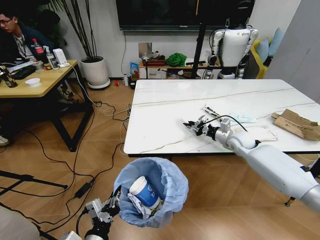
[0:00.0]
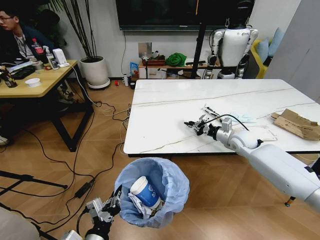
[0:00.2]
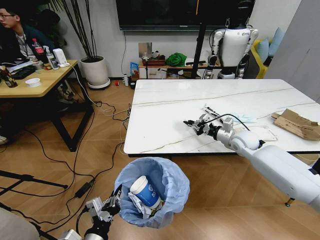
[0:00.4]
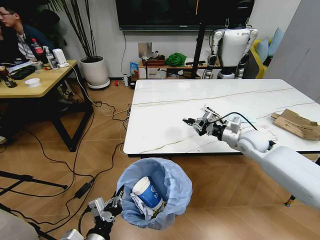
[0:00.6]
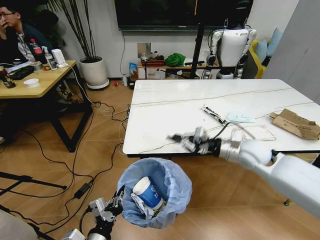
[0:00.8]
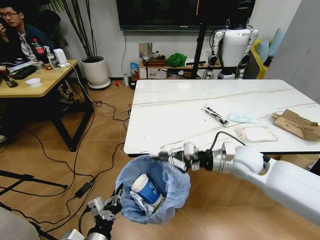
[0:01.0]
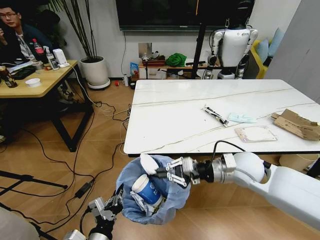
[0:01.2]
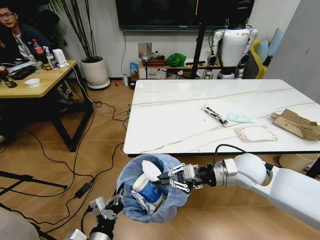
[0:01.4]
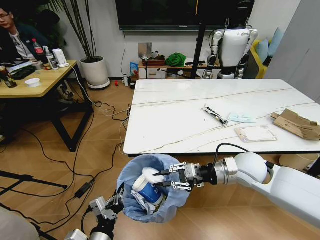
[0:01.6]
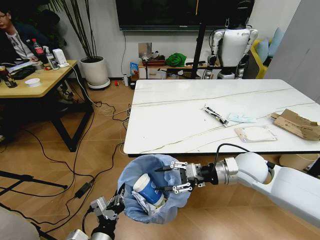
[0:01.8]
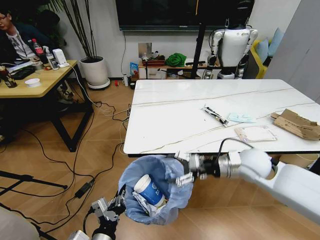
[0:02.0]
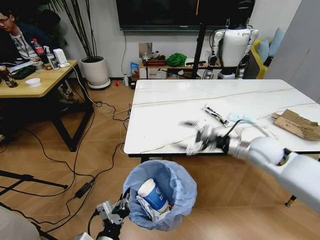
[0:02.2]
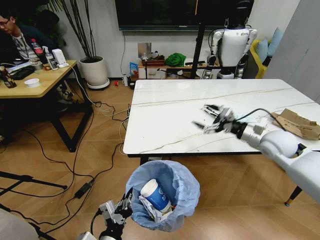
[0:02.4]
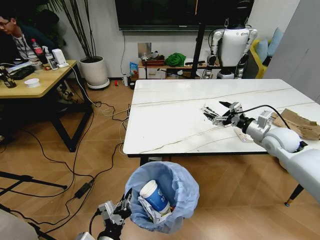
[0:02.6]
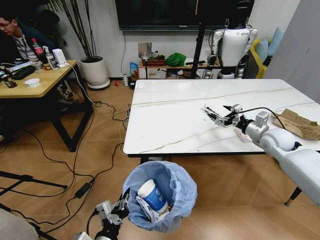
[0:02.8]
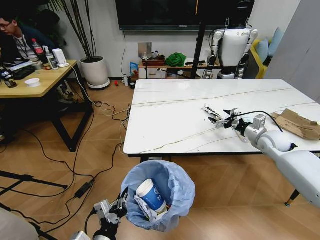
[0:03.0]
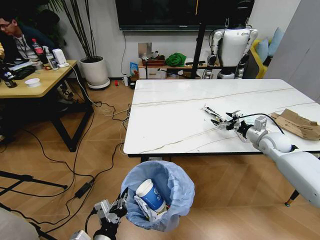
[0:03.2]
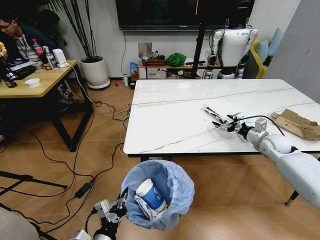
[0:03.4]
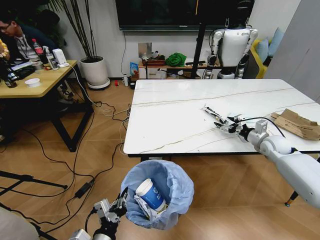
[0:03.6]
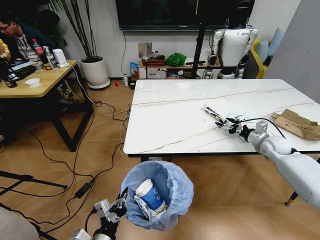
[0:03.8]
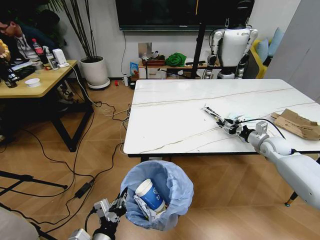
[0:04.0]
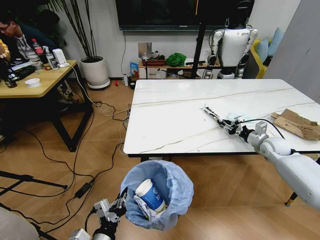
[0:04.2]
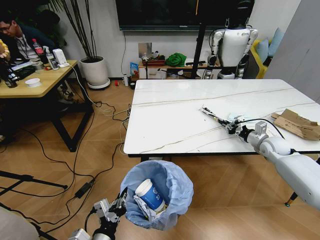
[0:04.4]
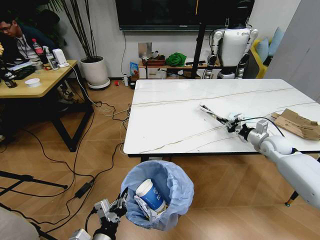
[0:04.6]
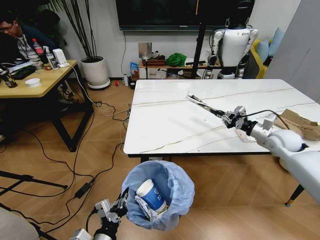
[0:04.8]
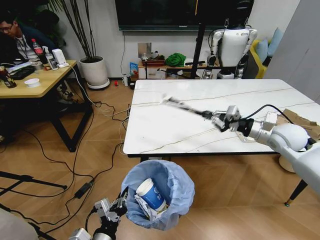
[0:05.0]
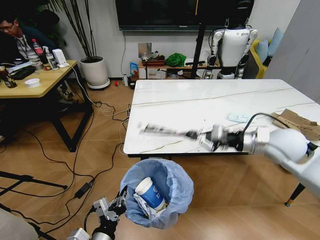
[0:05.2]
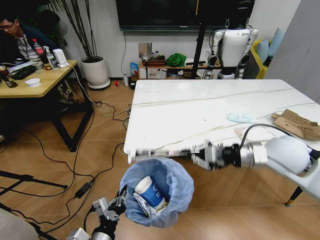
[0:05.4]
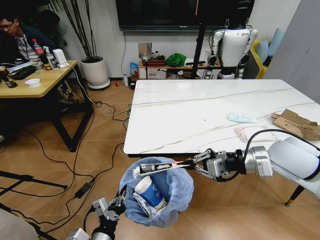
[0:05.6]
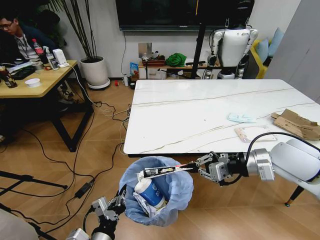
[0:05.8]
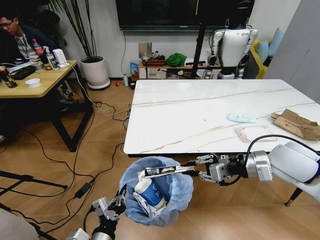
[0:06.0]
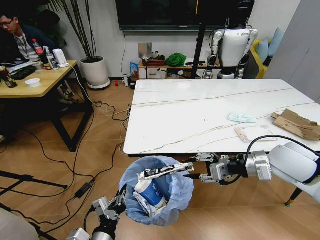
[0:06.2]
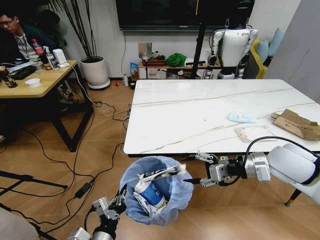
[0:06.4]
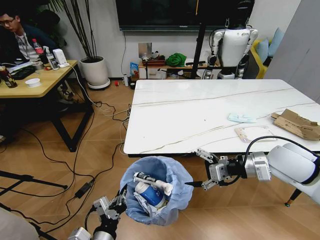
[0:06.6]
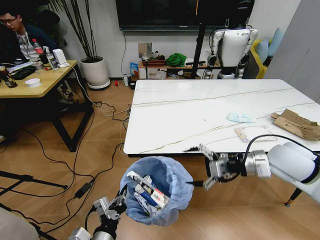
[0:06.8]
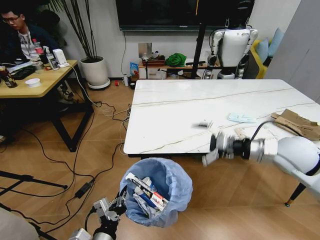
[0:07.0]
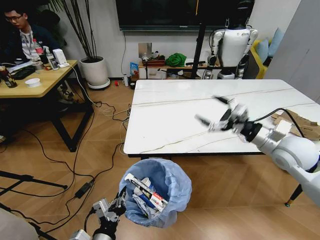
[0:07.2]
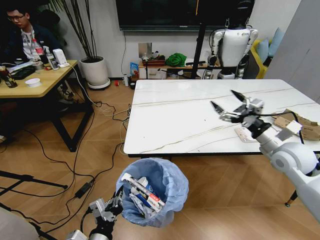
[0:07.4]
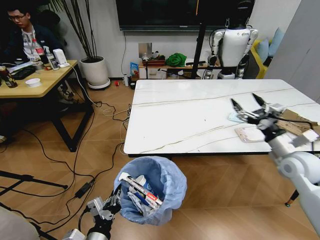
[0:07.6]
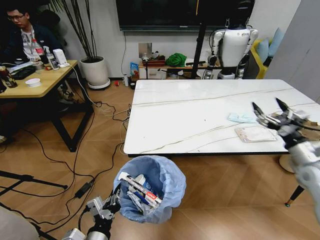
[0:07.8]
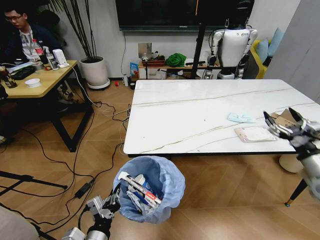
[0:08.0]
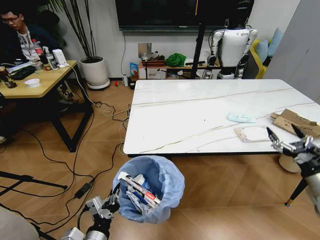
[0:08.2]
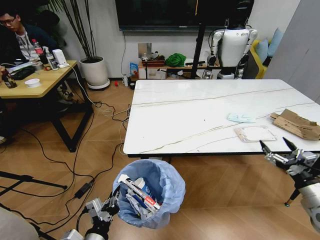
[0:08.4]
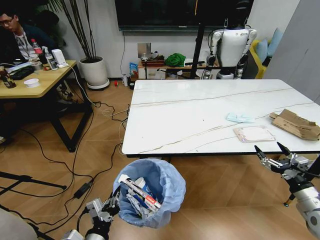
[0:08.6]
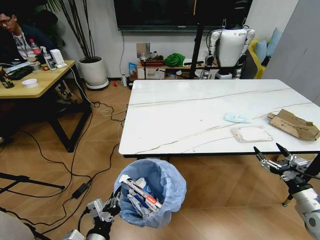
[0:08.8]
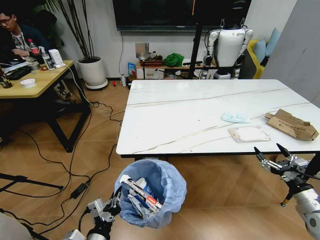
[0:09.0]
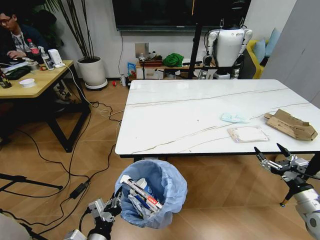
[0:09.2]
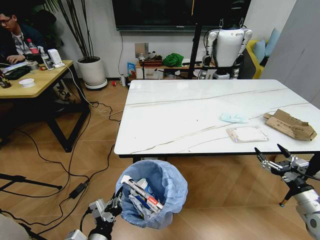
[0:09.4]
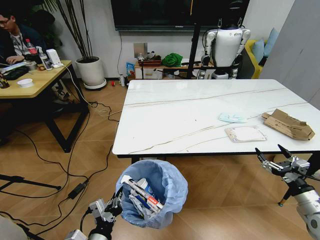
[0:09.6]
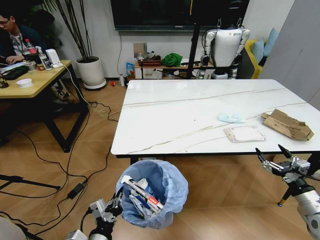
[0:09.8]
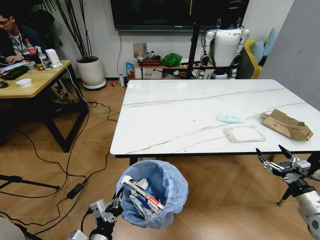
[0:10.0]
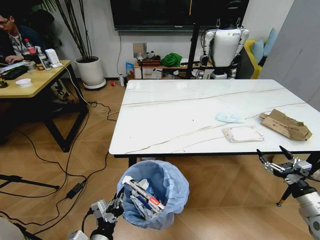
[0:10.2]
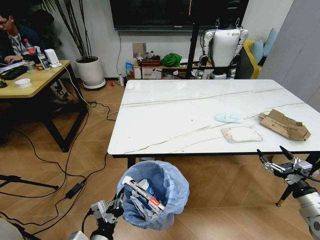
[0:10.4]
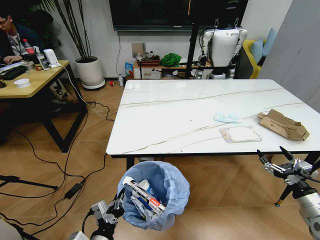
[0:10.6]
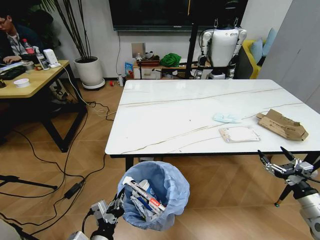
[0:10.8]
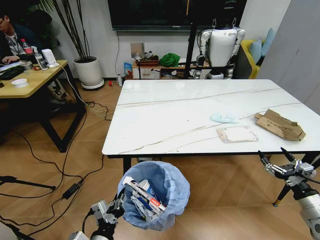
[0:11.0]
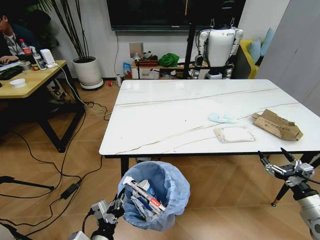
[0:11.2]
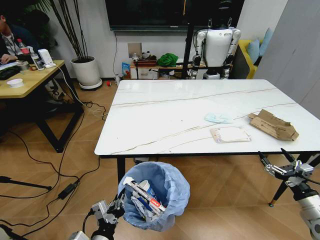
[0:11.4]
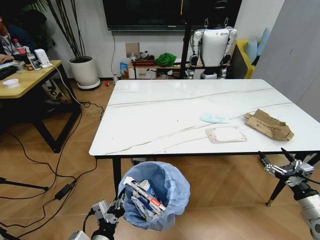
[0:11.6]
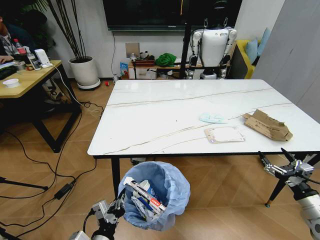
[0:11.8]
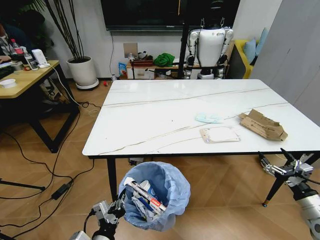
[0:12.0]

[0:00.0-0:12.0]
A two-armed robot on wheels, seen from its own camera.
Task of the whole recording: Pick up the trash bin and place the trash from the table into it.
0:00.0 to 0:01.6: The right gripper moves backward, to the left and upward, about 20 cm.
0:01.6 to 0:03.0: The right gripper goes some 20 cm to the right and forward, and opens its fingers.
0:03.0 to 0:04.4: The right gripper shifts by about 5 cm, and closes up.
0:04.4 to 0:06.0: The right gripper goes some 25 cm backward, upward and to the left.
0:06.0 to 0:07.6: The right gripper heads to the right and downward, covering some 10 cm, and opens its fingers.
0:07.6 to 0:09.0: The right gripper goes roughly 20 cm backward, downward and to the right.

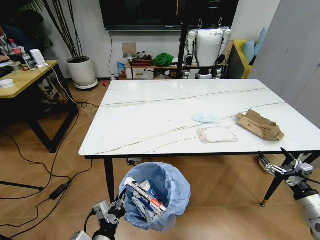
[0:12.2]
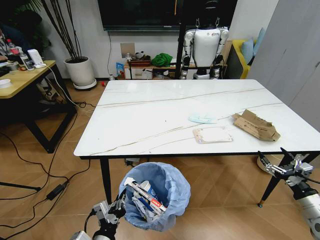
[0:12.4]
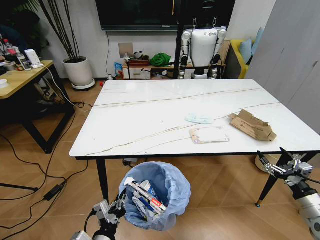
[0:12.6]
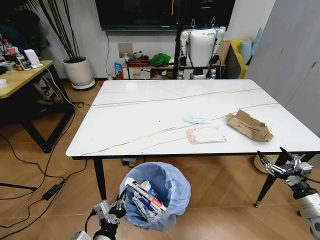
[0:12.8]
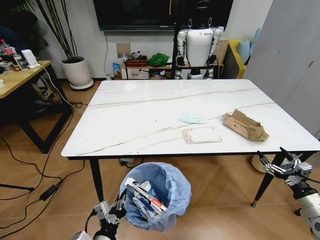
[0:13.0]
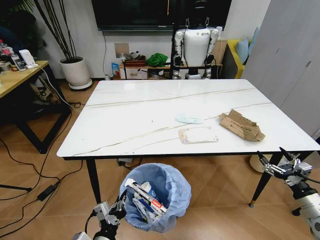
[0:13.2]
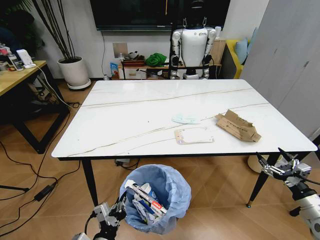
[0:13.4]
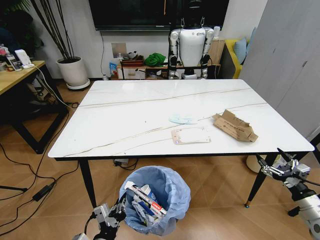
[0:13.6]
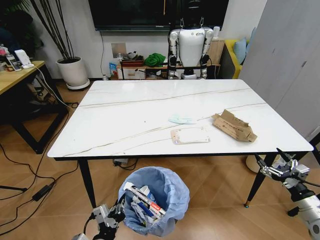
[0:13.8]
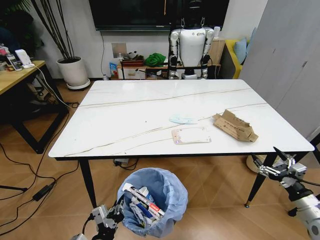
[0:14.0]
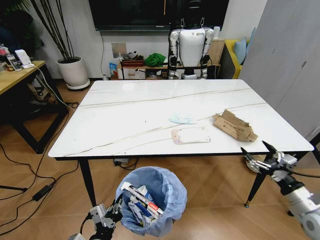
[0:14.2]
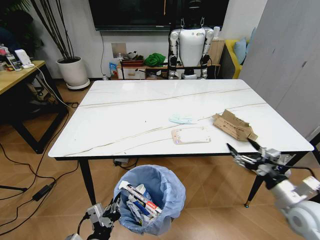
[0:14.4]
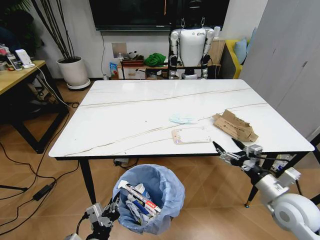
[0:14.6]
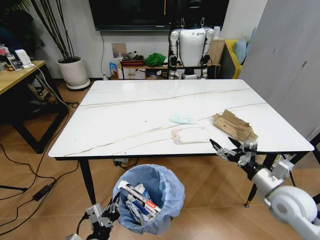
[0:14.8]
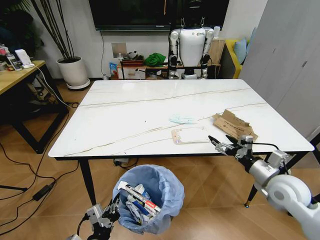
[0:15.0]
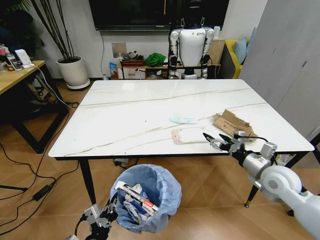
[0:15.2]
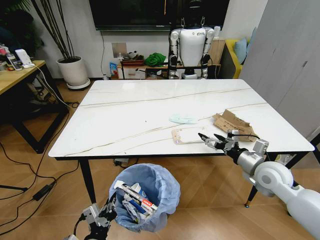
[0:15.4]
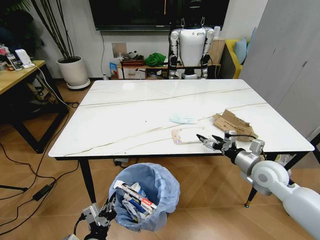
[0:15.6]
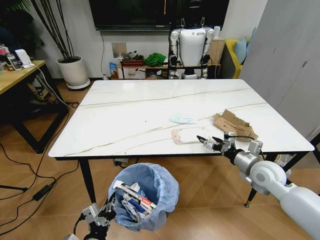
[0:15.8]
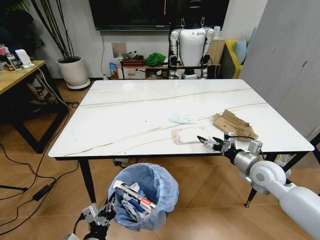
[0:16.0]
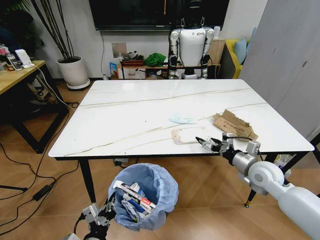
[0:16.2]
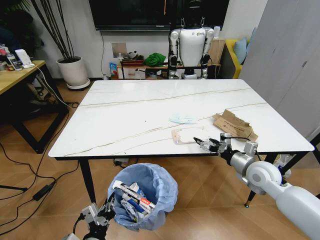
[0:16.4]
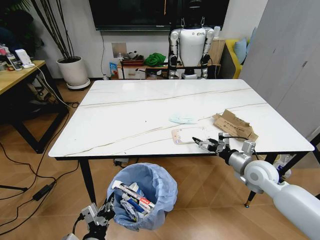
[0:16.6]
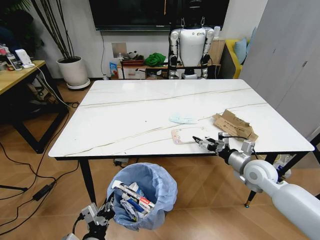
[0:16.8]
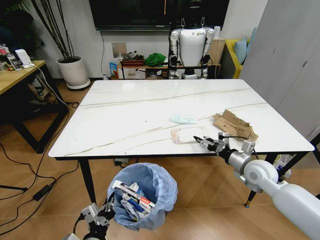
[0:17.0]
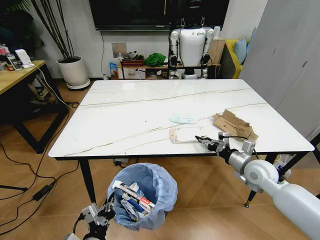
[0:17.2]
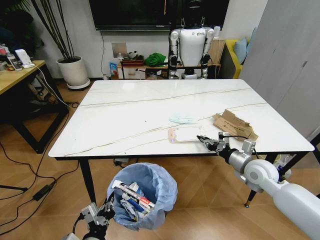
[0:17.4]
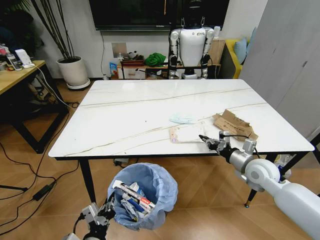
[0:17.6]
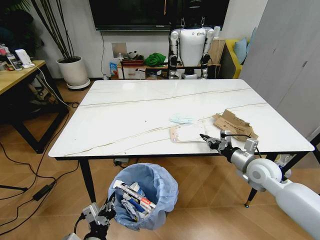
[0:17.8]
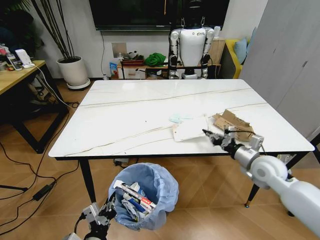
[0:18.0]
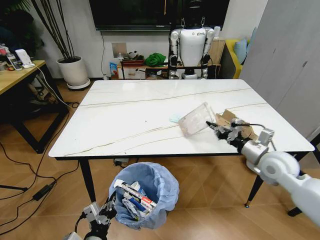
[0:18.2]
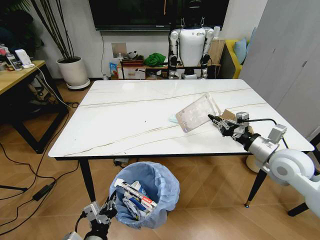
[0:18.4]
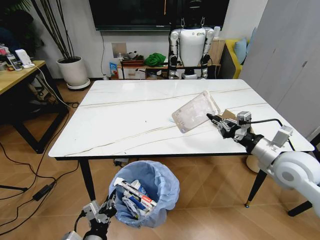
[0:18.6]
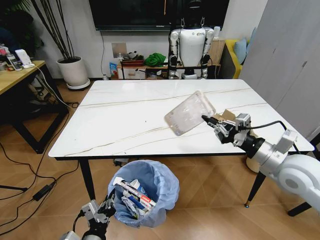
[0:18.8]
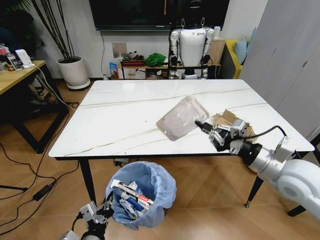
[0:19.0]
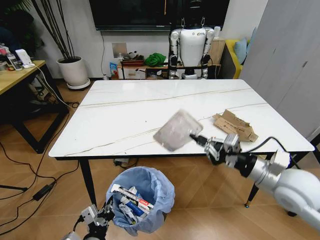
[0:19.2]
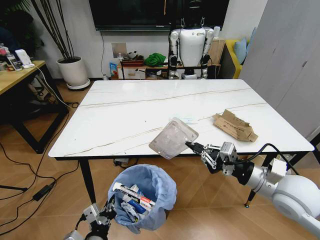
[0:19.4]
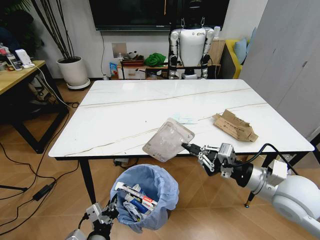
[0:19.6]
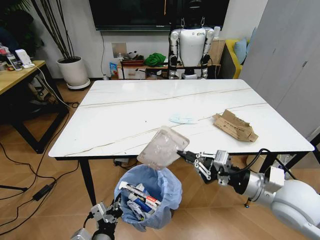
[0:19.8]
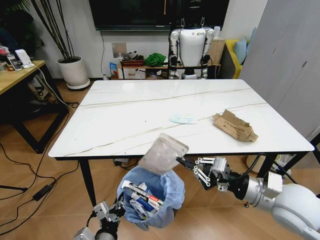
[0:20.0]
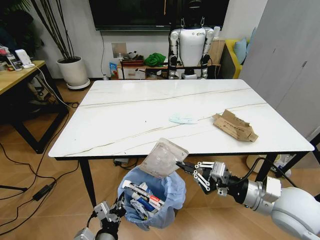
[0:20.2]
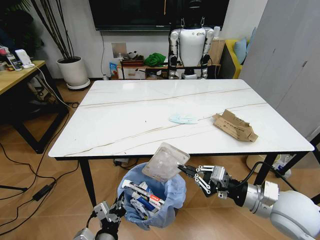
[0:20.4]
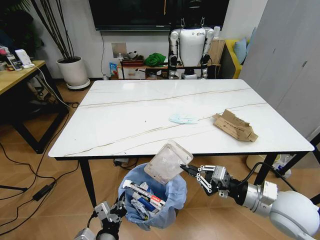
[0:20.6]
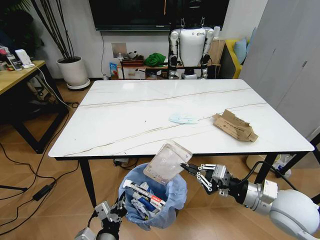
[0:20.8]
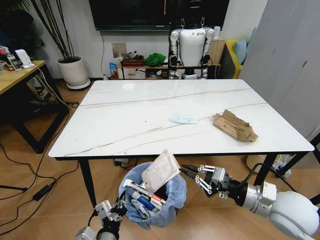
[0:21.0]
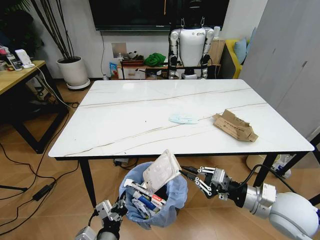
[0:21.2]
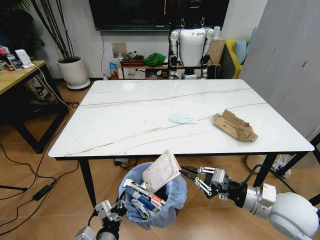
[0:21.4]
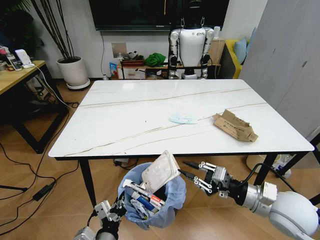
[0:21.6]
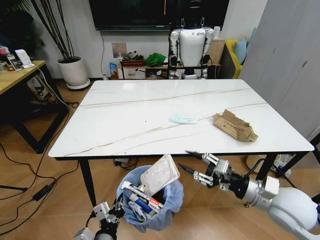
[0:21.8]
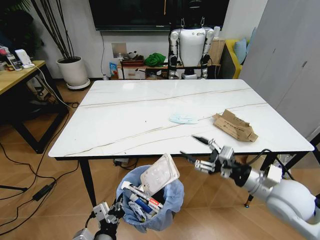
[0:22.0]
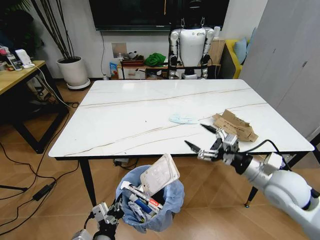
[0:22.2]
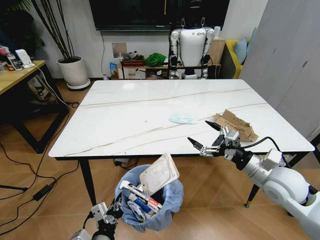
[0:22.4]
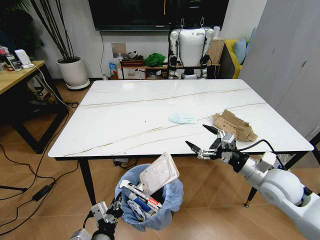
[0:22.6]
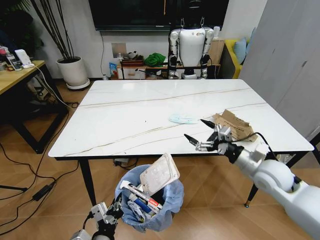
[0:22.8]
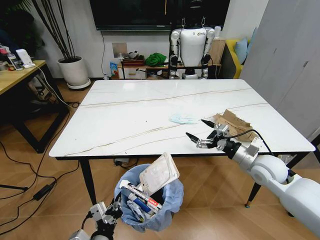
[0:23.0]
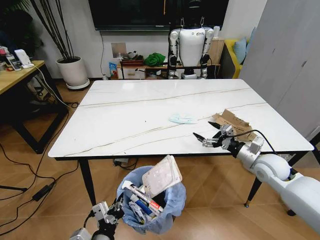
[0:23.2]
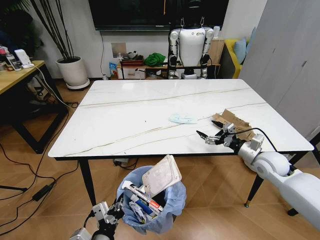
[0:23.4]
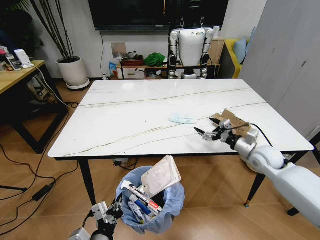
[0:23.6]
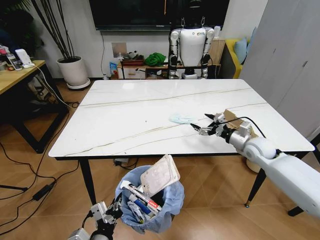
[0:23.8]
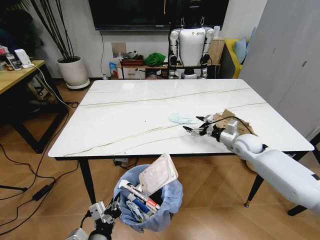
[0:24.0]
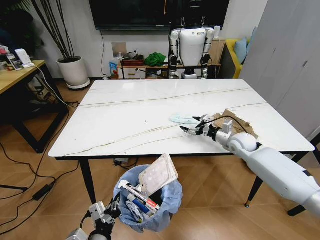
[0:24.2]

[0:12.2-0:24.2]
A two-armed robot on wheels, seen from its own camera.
Task of the whole recording: Pick up the trash bin and place the trash from the table into it.
0:13.8 to 0:15.2: The right gripper is displaced to the left, forward and upward by about 20 cm.
0:15.2 to 0:16.6: The right gripper moves approximately 5 cm.
0:16.6 to 0:18.2: The right gripper moves upward, roughly 5 cm, and closes up.
0:18.2 to 0:19.8: The right gripper moves backward and to the left, some 15 cm.
0:19.8 to 0:21.2: The right gripper moves approximately 5 cm.
0:21.2 to 0:22.6: The right gripper moves forward, roughly 5 cm, and opens.
0:22.6 to 0:24.2: The right gripper shifts approximately 20 cm forward.
